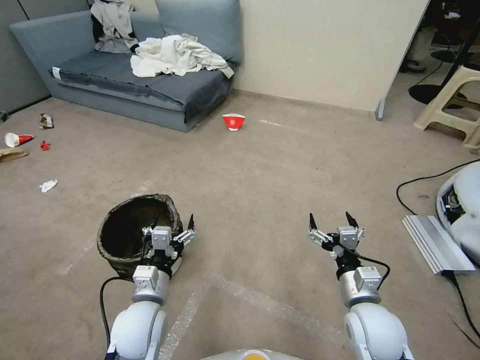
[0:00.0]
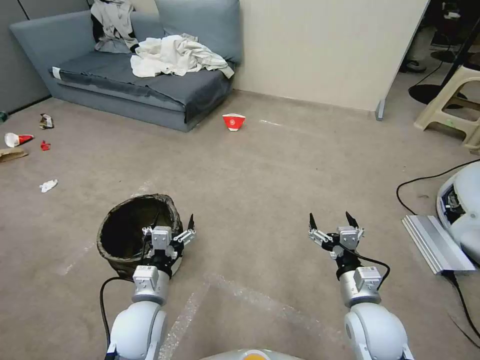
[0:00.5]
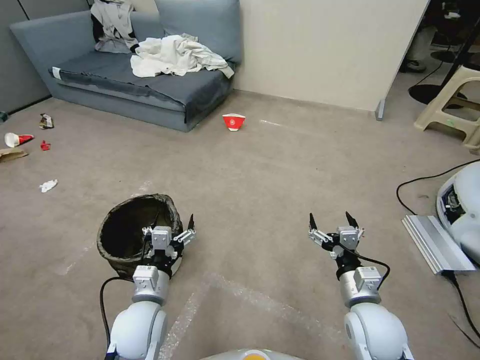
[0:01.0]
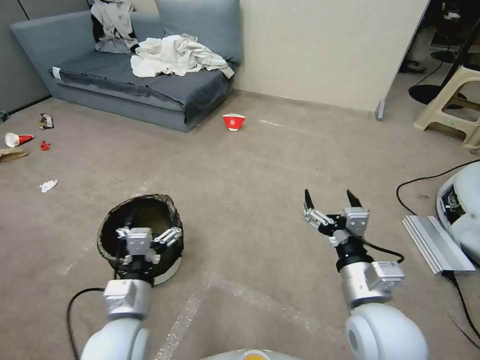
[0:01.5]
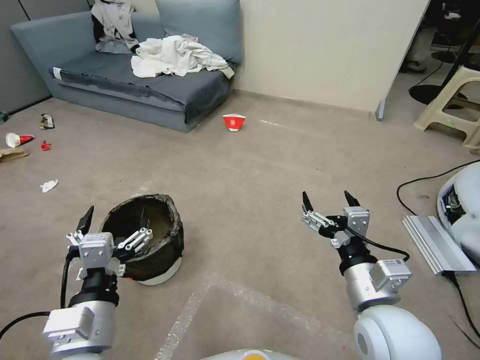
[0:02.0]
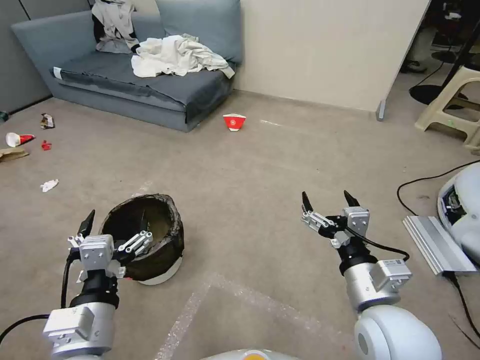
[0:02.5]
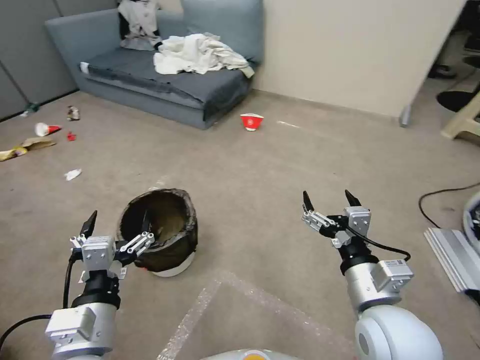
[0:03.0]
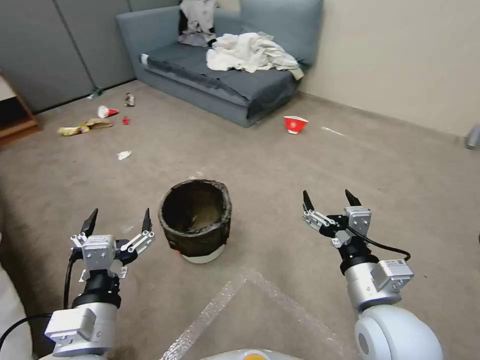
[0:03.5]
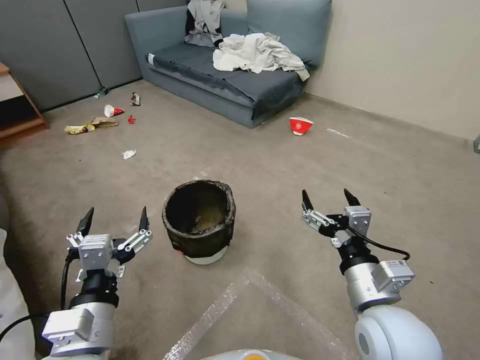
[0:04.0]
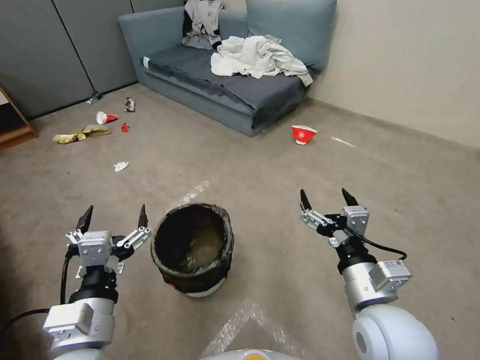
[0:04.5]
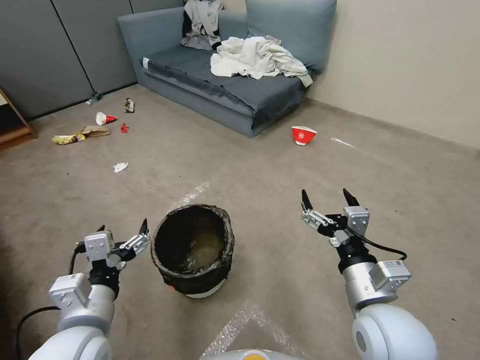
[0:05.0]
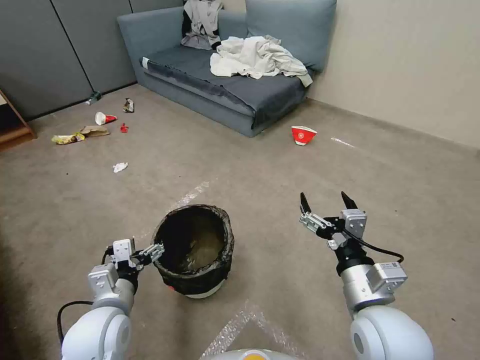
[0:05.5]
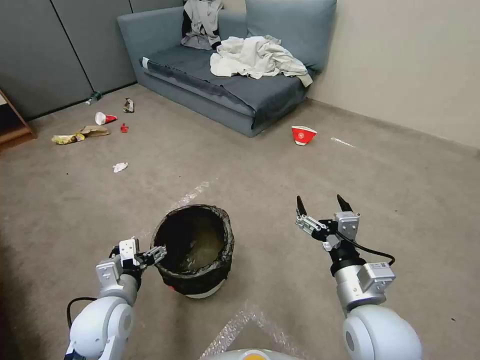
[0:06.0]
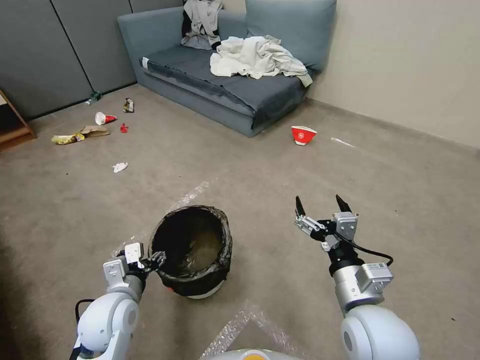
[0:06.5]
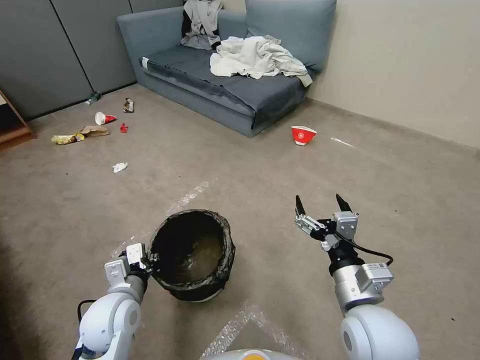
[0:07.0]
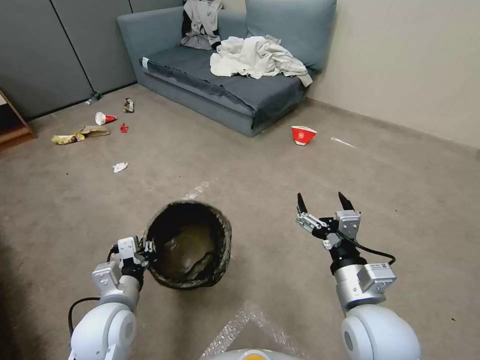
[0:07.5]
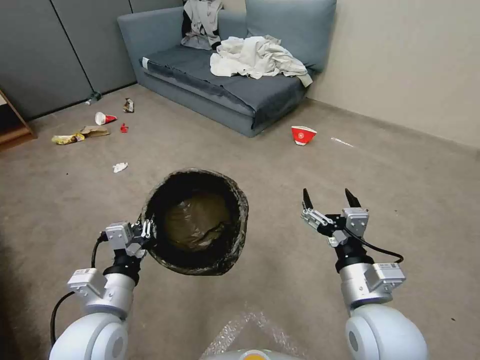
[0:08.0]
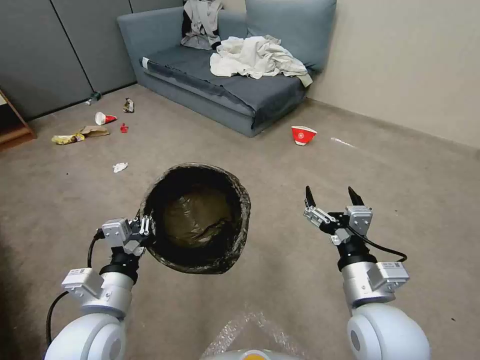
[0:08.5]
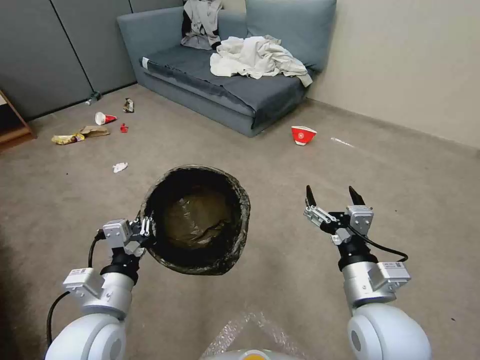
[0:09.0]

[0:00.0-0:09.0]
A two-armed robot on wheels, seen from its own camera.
Task of the whole recording: Pick up the trash can from the floor.
0:04.5 to 0:07.0: The left gripper goes some 15 cm downward and forward, and closes its fingers.
0:07.0 to 0:09.0: The left gripper goes approximately 10 cm upward and backward.
